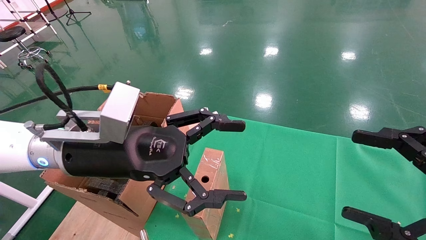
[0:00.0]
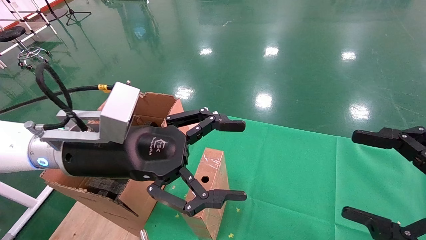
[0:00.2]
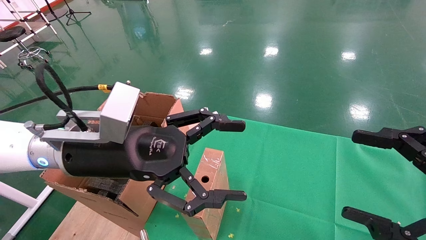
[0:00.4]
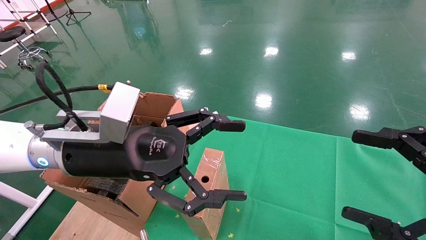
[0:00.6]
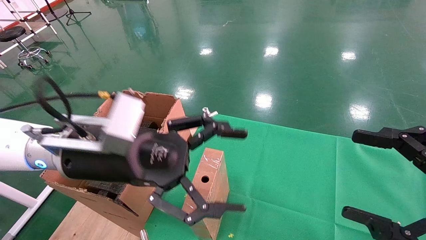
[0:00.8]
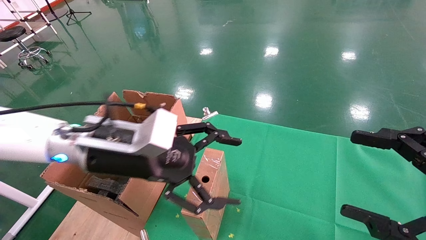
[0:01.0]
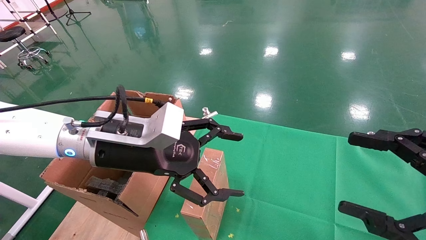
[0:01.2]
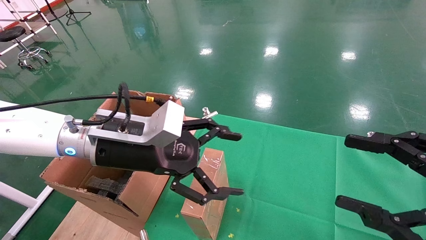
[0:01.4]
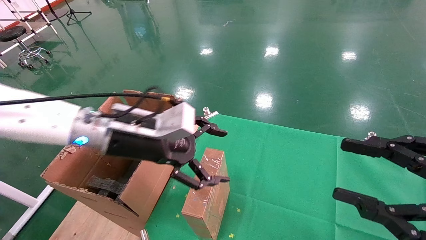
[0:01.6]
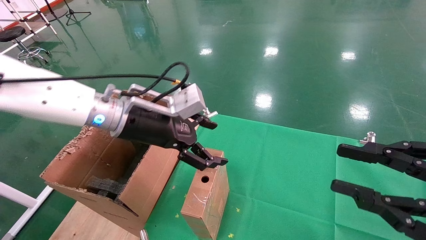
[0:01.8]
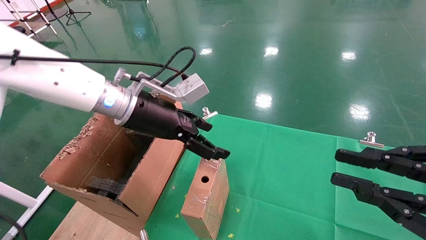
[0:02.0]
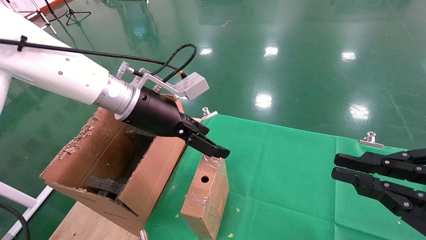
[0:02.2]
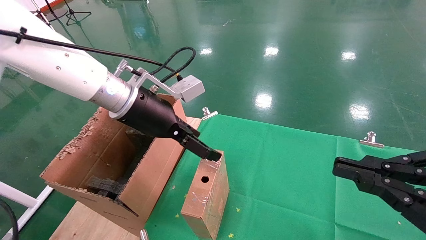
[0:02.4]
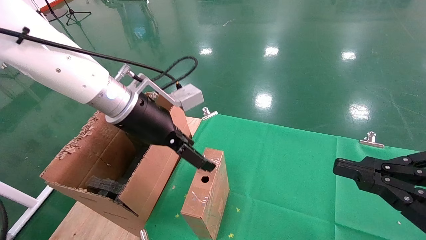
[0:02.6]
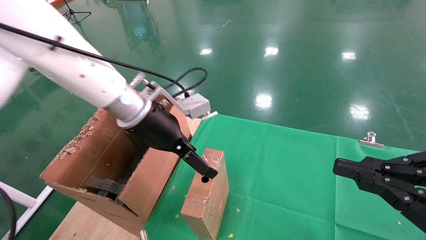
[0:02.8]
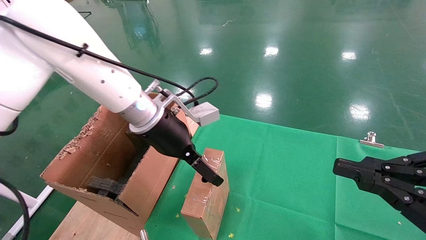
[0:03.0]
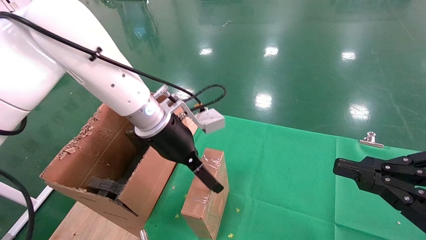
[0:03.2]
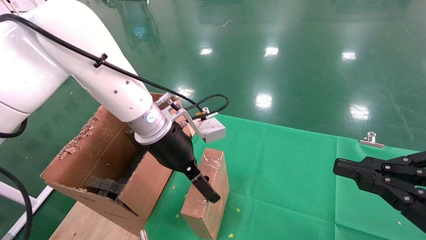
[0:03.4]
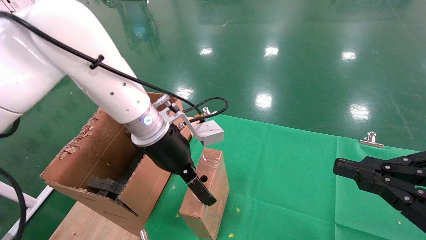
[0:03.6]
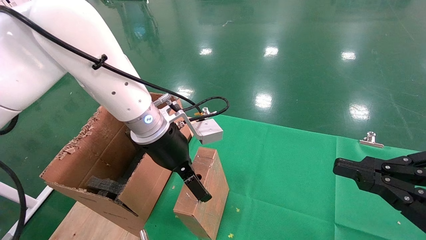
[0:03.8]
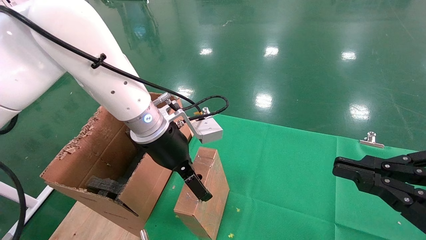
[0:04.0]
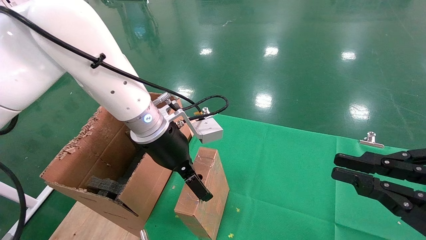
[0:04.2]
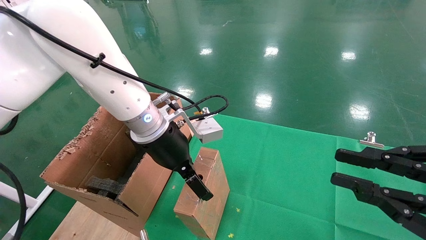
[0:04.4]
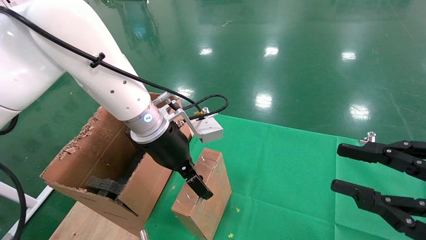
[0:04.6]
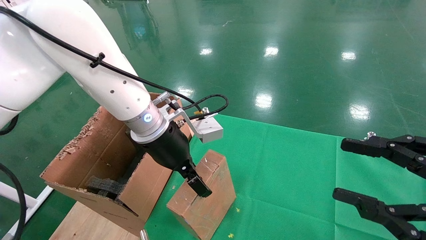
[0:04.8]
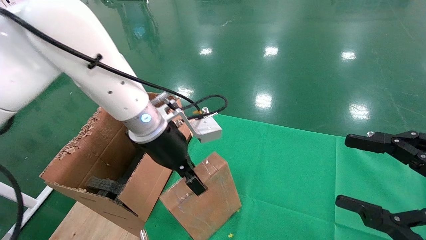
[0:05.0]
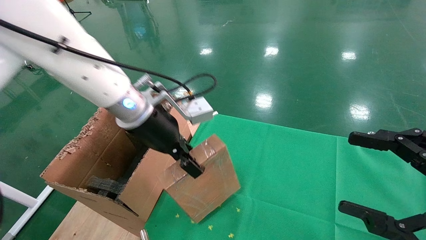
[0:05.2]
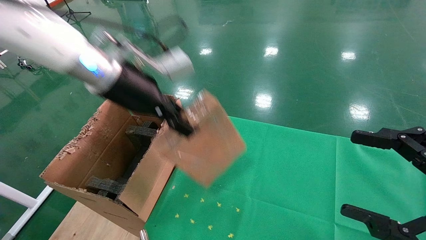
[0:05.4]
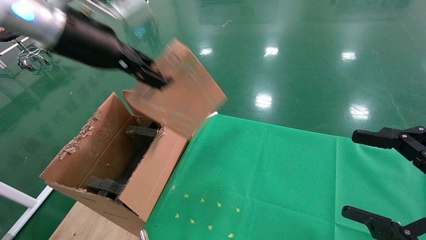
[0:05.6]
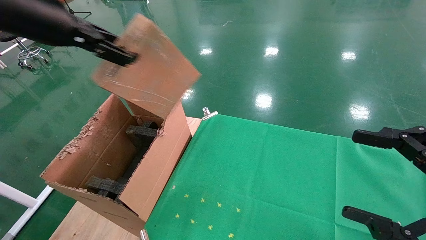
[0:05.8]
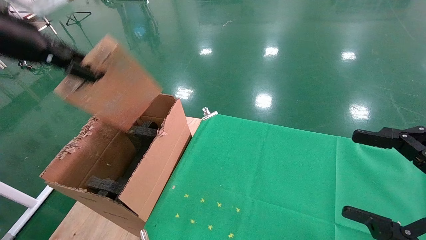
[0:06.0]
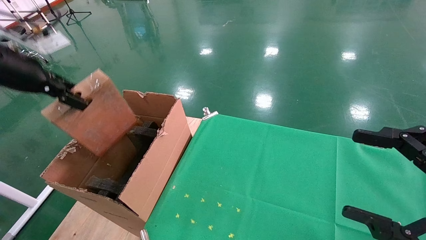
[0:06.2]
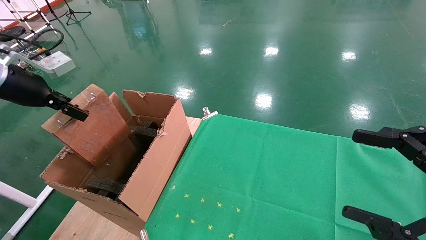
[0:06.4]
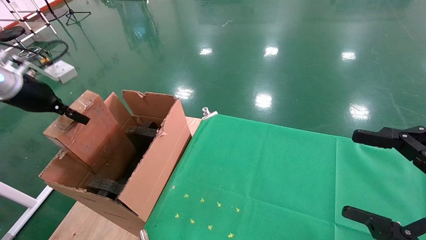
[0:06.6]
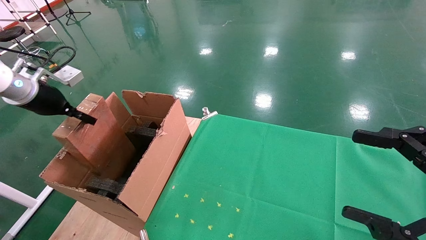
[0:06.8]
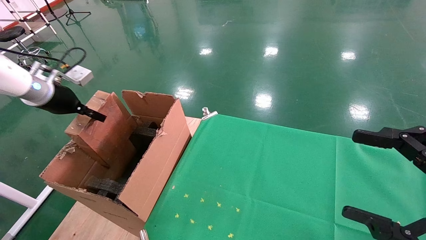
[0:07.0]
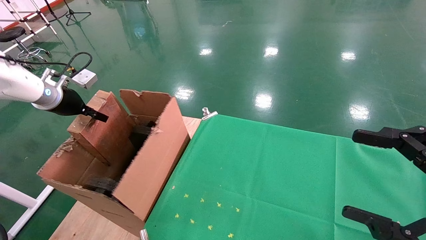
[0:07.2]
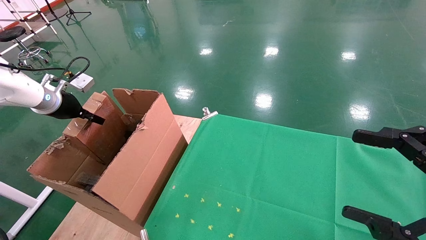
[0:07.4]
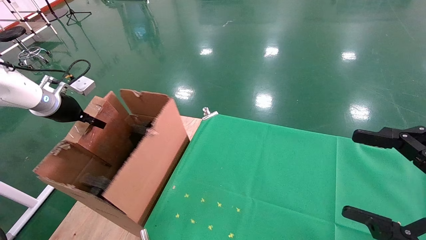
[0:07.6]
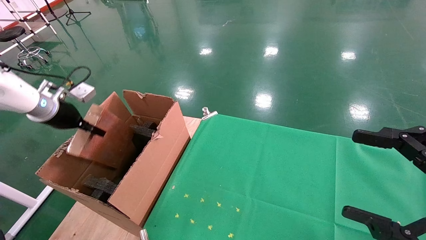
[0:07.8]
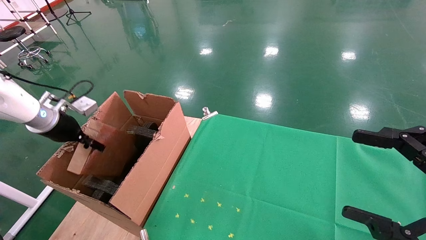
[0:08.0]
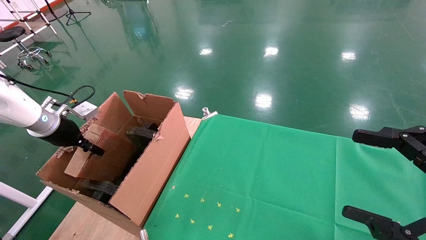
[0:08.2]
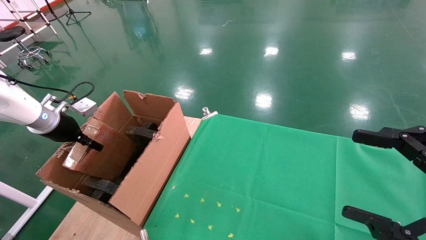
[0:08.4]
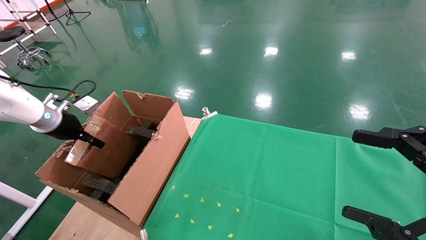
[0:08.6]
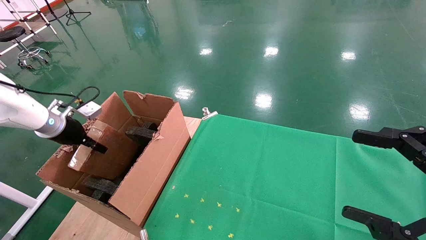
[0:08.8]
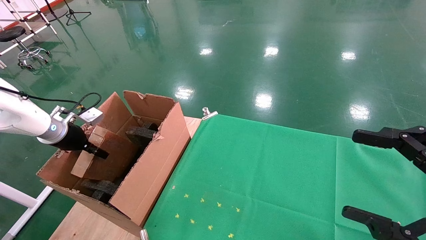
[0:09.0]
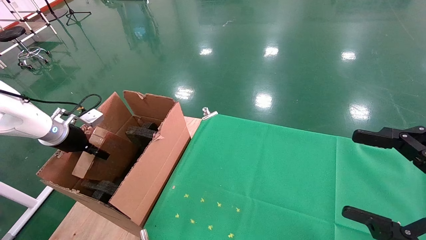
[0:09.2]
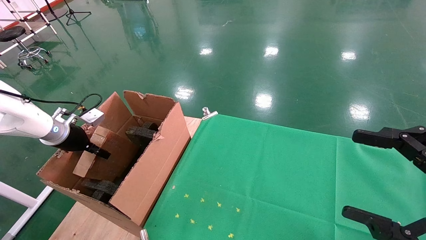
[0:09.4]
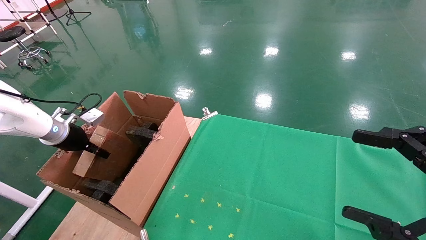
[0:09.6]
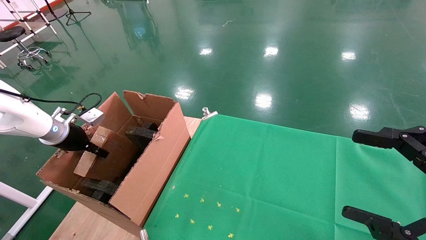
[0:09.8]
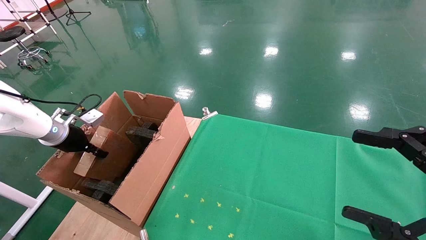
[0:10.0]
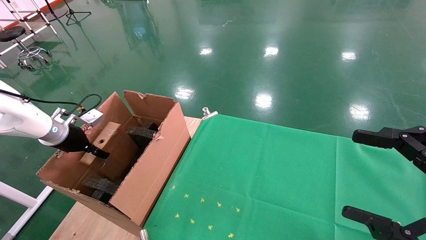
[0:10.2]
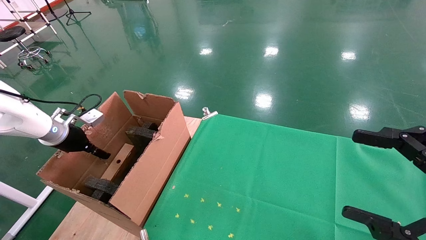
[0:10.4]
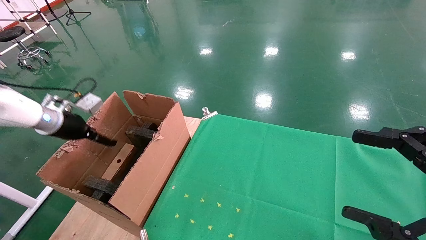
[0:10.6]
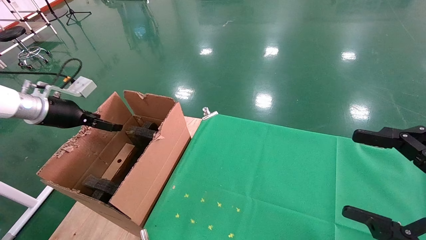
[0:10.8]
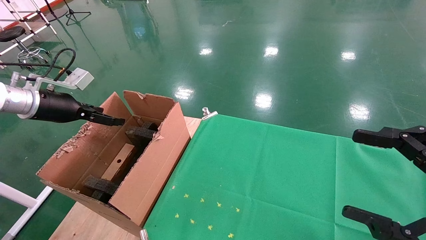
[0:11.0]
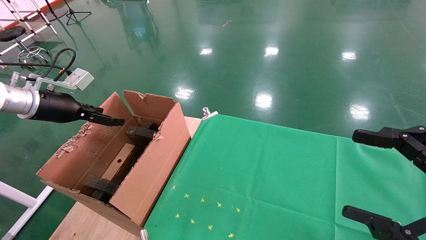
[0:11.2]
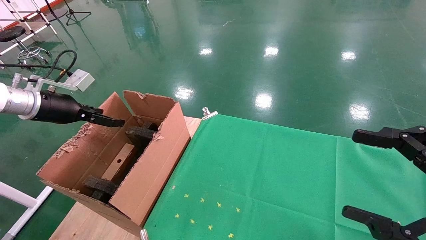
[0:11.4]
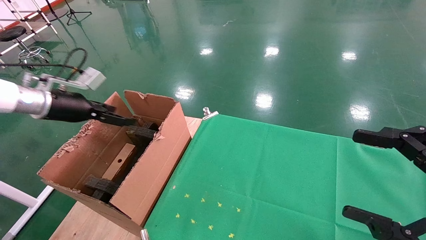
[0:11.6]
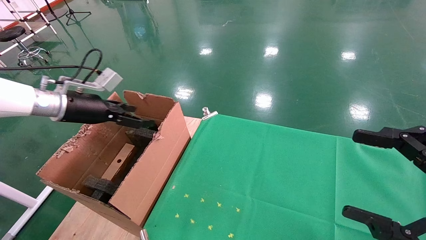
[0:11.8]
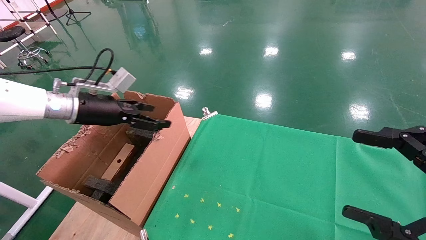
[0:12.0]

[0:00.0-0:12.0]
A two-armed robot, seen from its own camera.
Task of the whole recording: using a robotic arm to pick up a cardboard box and palace it the carton.
Step, 0:01.0 to 0:04.8: Pick up the mouse and the power cord paper box.
Step, 0:05.0 to 0:10.2: Place the mouse and the power cord paper box into the container.
0:00.0 to 0:01.6: The left gripper goes approximately 5 cm forward.
0:01.6 to 0:03.0: The left gripper changes place by some 5 cm. Meanwhile the right gripper closes up.
0:03.0 to 0:04.4: The grippers make only small movements.
0:04.4 to 0:06.0: The left gripper is displaced to the left and upward by approximately 30 cm, and closes; the right gripper opens.
0:06.0 to 0:07.6: The left gripper moves downward, forward and to the left, some 20 cm.
0:07.6 to 0:09.0: The left gripper travels downward by roughly 5 cm.
0:09.0 to 0:10.4: The left gripper opens up.
0:10.4 to 0:12.0: The left gripper shifts approximately 15 cm to the right and upward, and opens up.

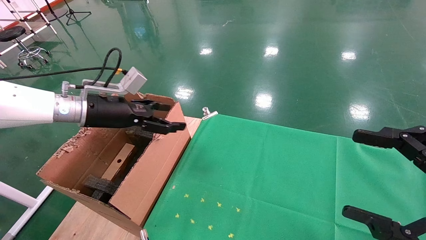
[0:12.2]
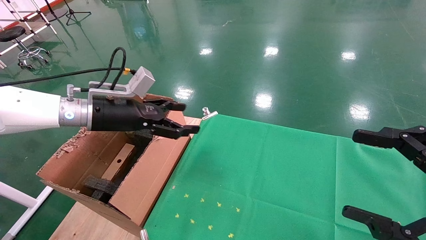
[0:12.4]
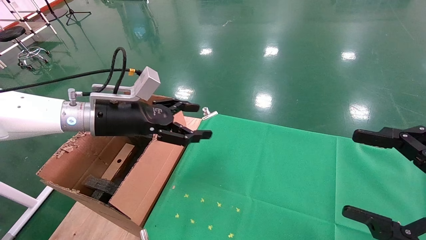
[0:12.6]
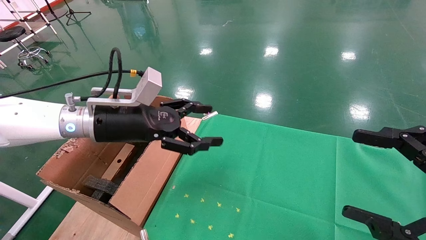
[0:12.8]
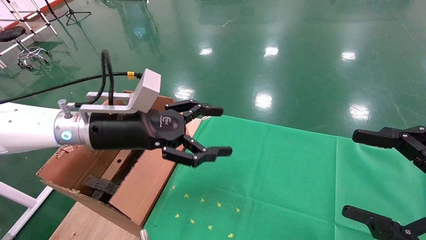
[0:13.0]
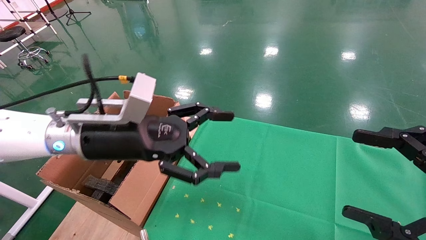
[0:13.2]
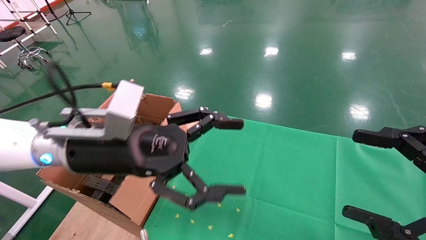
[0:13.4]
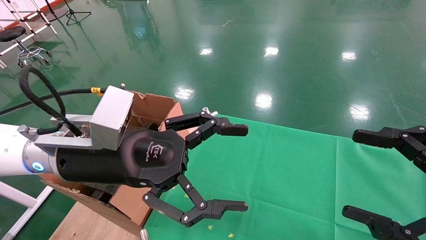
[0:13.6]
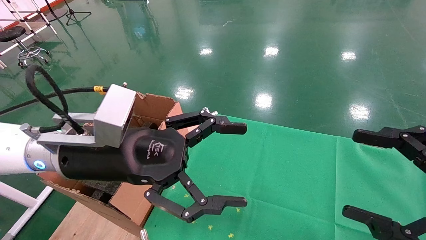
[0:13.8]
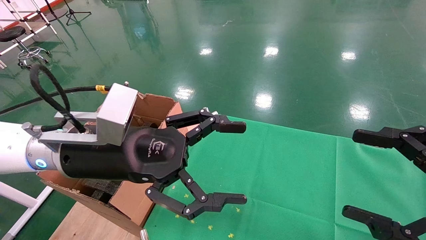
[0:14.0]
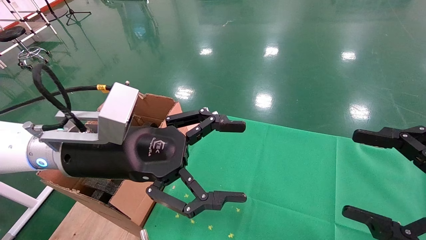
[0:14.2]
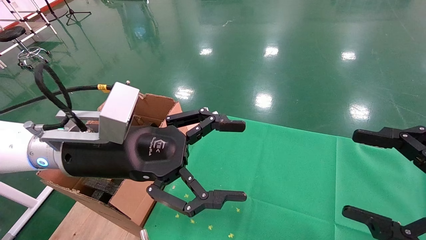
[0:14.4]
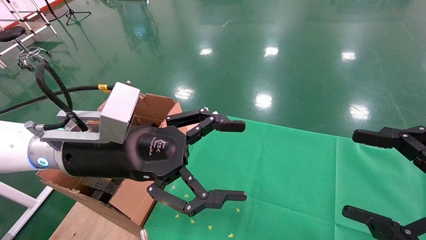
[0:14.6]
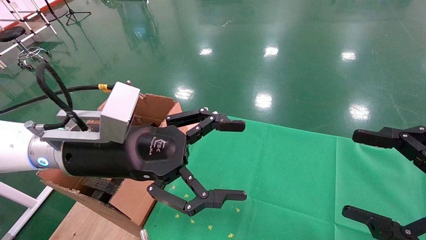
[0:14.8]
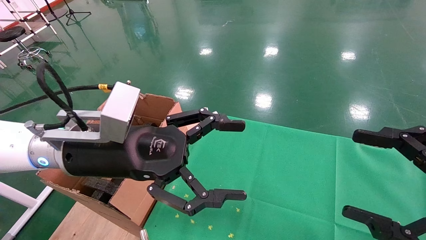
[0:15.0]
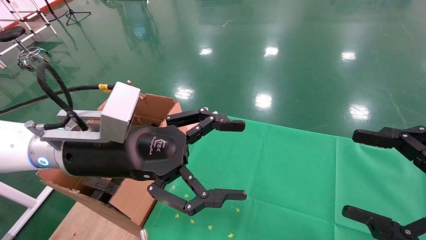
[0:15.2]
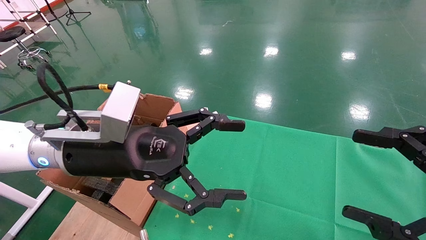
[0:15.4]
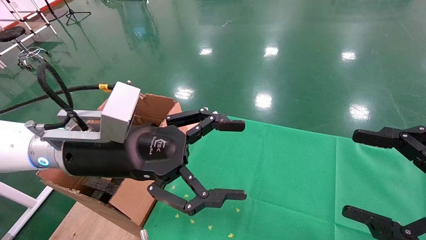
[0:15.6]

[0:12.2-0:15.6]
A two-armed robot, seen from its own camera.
Task of the whole recording: using a robotic arm to pick up a cardboard box and palace it the carton.
0:12.2 to 0:13.8: The left gripper goes approximately 20 cm backward and to the right.
0:13.8 to 0:15.6: Both grippers stay put.
